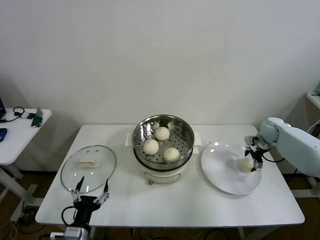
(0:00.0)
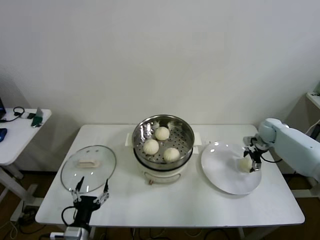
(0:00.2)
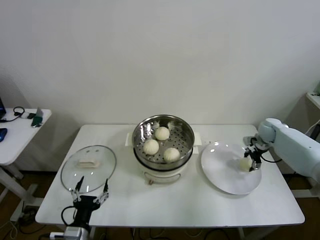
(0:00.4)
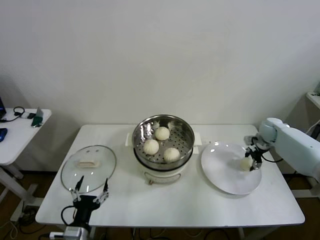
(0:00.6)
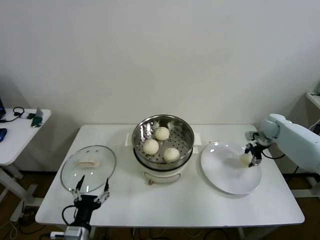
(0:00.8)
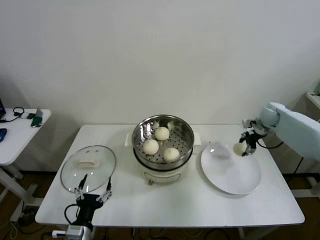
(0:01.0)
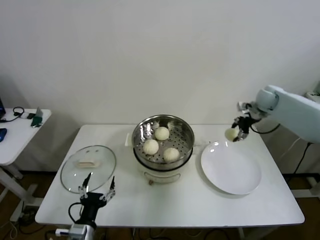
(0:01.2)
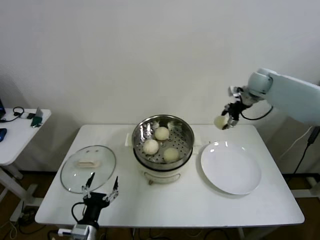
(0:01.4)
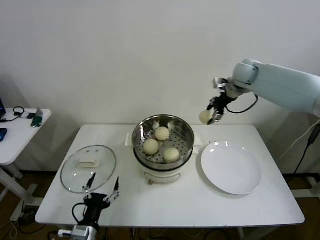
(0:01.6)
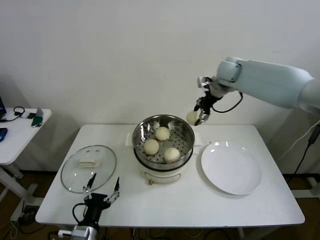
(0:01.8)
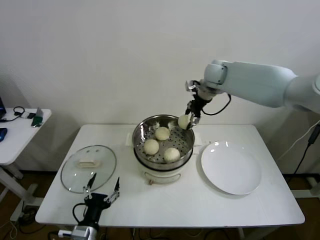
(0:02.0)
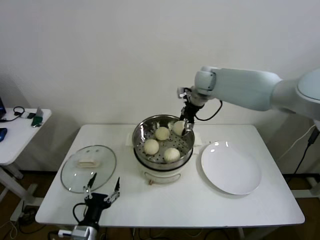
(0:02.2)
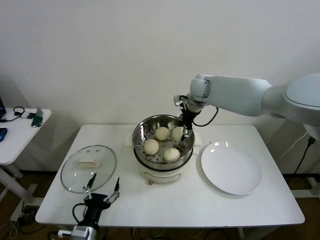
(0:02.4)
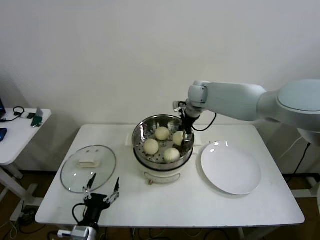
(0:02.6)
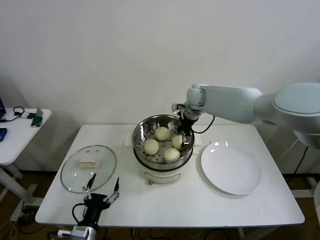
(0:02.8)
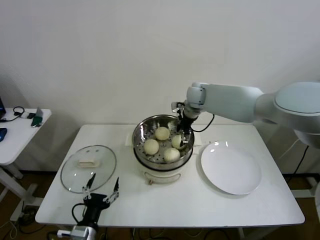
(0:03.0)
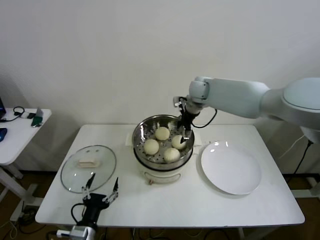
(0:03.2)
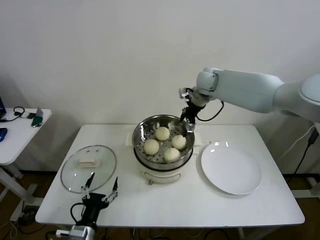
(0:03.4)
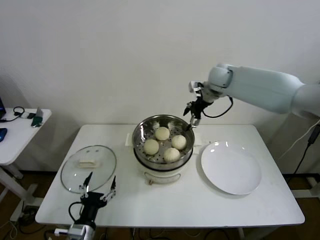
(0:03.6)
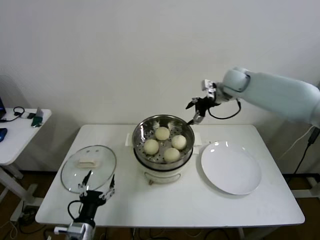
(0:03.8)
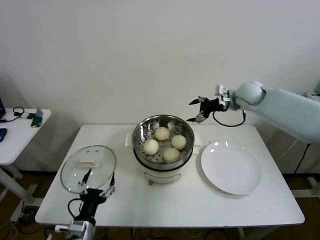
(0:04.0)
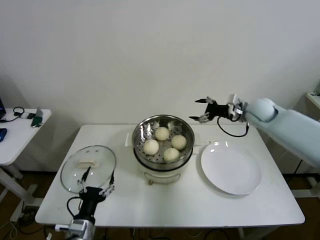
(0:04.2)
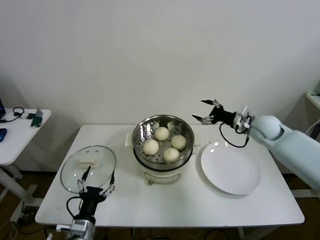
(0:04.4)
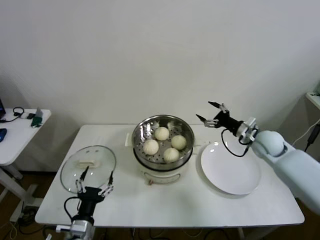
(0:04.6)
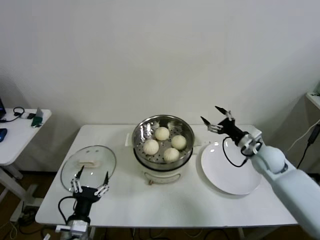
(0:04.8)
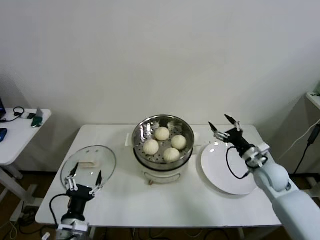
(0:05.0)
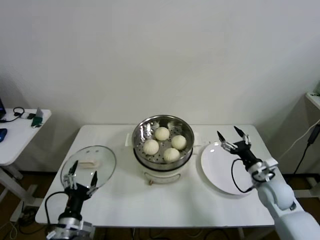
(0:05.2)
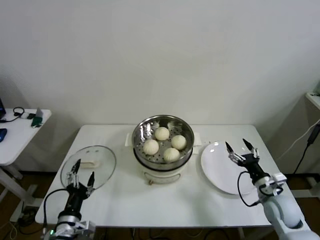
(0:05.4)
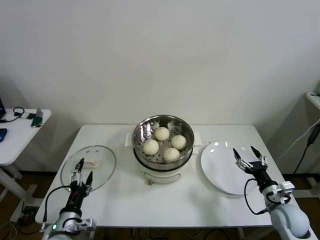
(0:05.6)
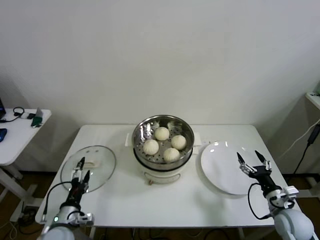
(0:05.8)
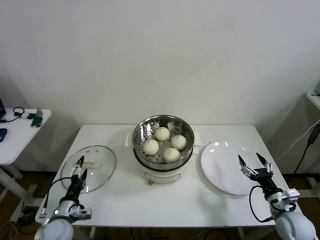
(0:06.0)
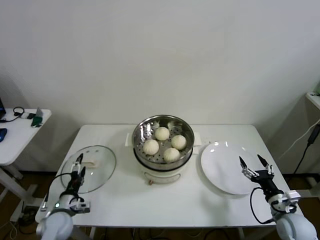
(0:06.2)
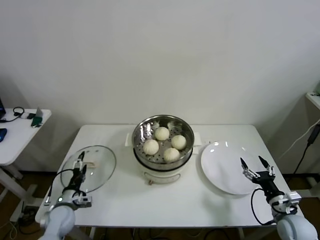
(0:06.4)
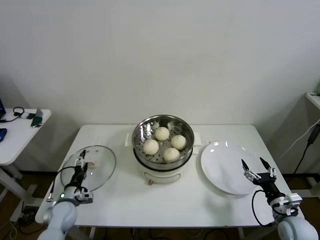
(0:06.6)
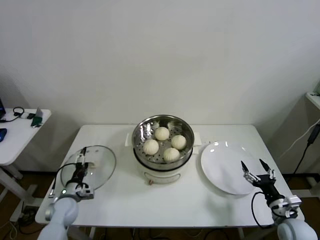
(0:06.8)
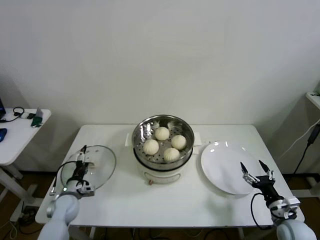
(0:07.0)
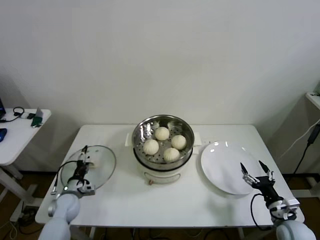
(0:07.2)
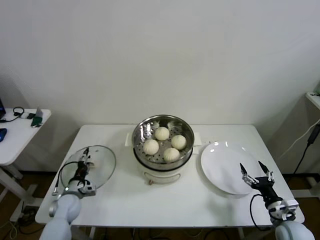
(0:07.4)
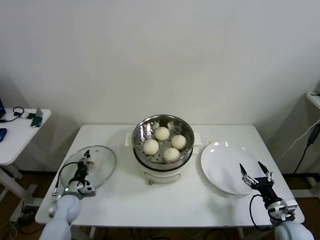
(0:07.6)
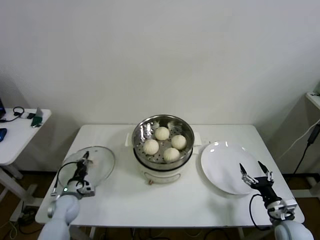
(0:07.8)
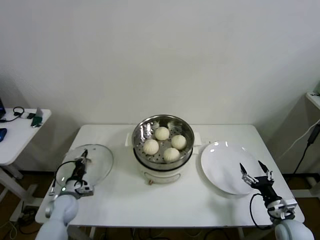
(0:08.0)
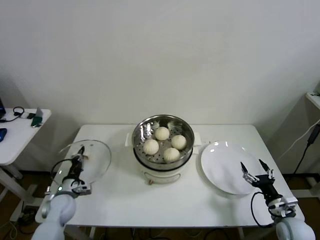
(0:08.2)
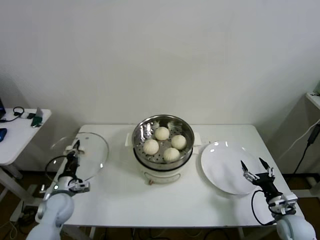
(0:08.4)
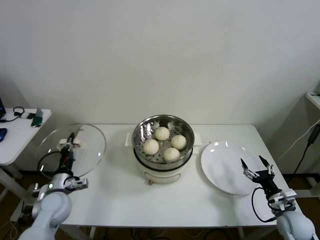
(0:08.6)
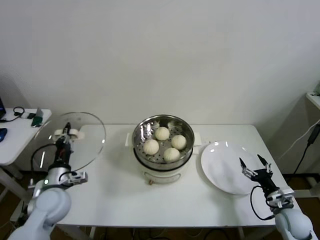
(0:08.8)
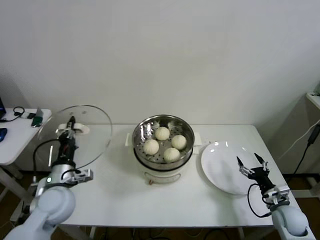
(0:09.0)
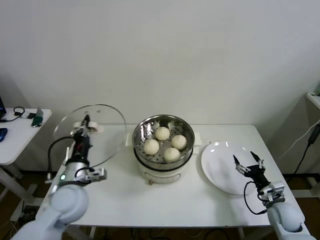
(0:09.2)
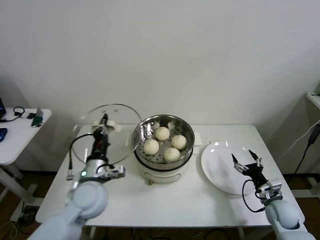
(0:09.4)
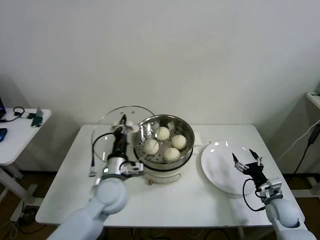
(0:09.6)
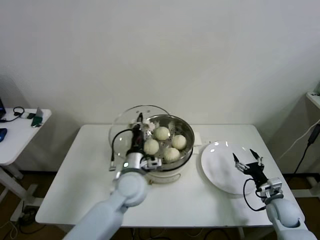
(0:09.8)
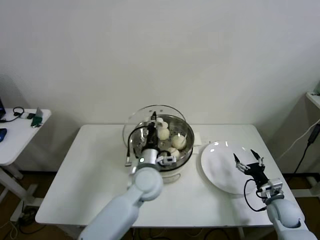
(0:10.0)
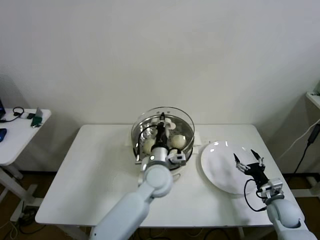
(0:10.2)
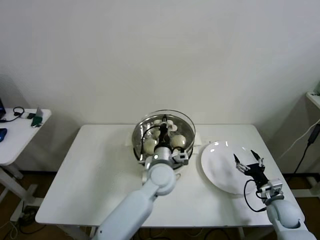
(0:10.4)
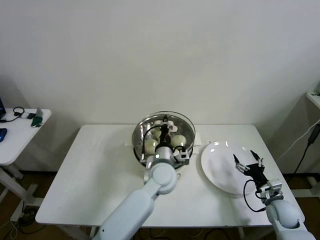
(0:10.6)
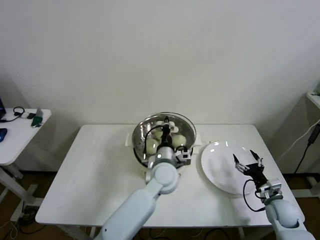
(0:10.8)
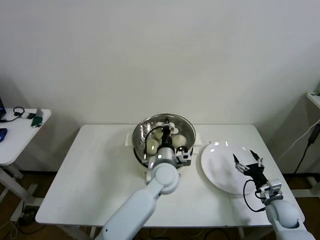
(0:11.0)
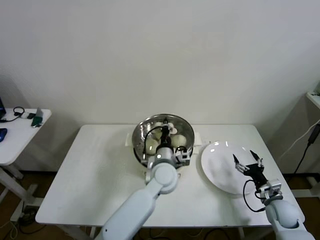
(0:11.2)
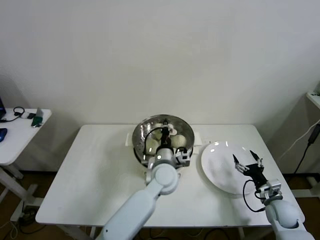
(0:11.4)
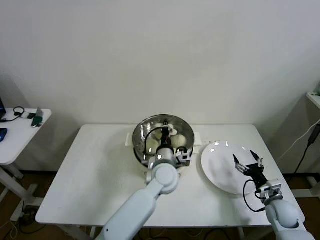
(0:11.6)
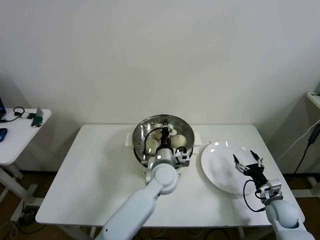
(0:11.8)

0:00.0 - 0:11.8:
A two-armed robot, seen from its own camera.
Step, 0:00.6 - 0:03.0: Place the baozi on the steamer with right gripper.
Step, 0:03.2 - 0:07.8: Grasp the pot lid with left gripper.
0:00.0 - 0:01.4: The right gripper is displaced upward and to the left by about 20 cm, and closes up.
0:01.4 - 0:03.0: The right gripper heads to the left, covering roughly 20 cm, and opens its fingers.
0:03.0 - 0:04.4: The right gripper heads to the right and backward, covering roughly 25 cm.
0:04.4 - 0:06.0: The left gripper travels to the left and forward by about 10 cm; the right gripper goes about 30 cm backward and downward.
0:06.0 - 0:07.4: The left gripper shifts roughly 10 cm forward and downward.
0:07.4 - 0:08.8: The left gripper travels upward by about 15 cm, and closes its fingers.
0:08.8 - 0:10.4: The left gripper is displaced to the right by about 35 cm.
0:10.4 - 0:11.8: The grippers move only a little.

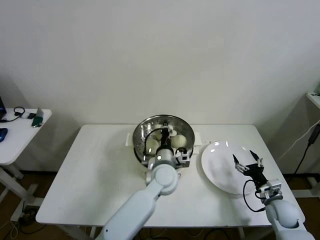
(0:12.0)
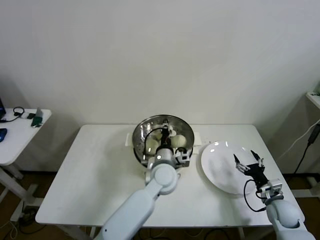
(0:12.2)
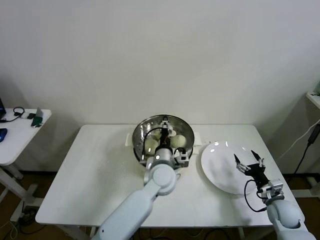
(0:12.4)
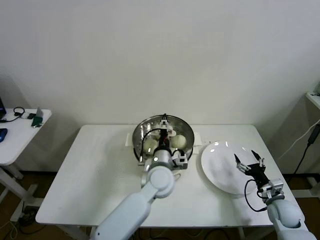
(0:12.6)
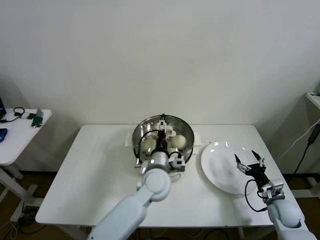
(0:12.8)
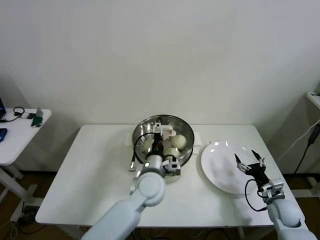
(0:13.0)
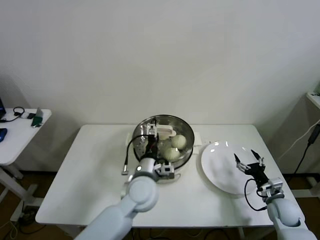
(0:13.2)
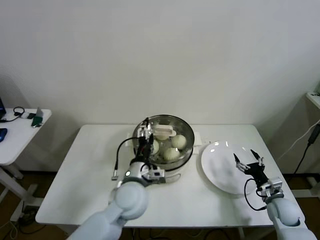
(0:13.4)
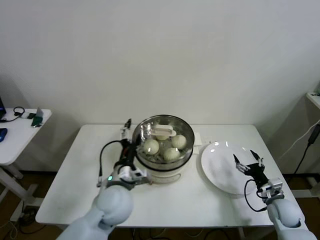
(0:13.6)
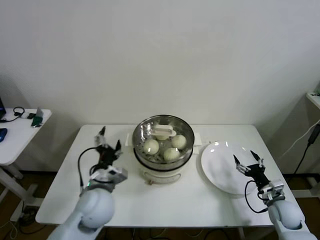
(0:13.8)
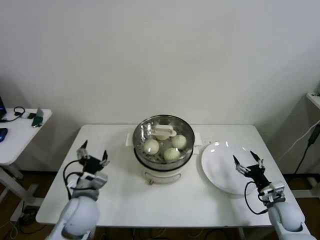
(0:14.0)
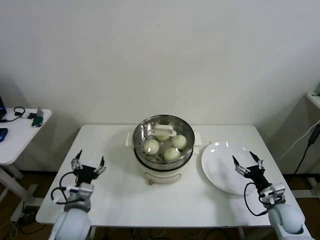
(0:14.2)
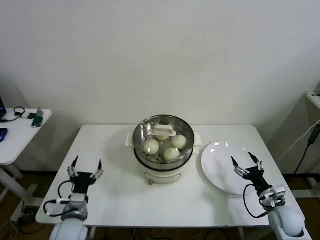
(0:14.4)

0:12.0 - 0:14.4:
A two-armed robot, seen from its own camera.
0:12.0 - 0:13.2: The left gripper heads to the left, covering approximately 5 cm, and opens its fingers.
0:13.2 - 0:14.4: The left gripper goes roughly 25 cm to the left and backward.

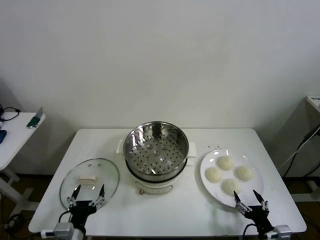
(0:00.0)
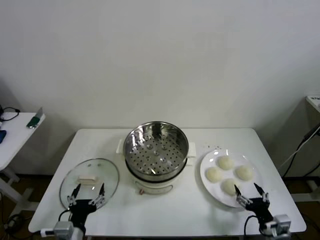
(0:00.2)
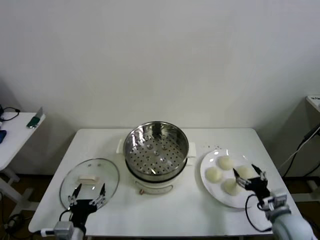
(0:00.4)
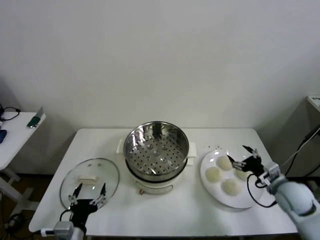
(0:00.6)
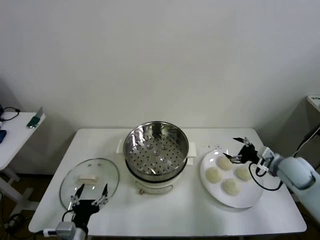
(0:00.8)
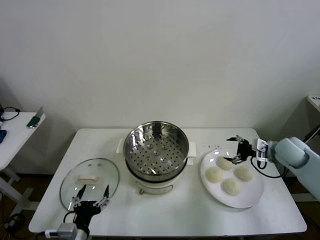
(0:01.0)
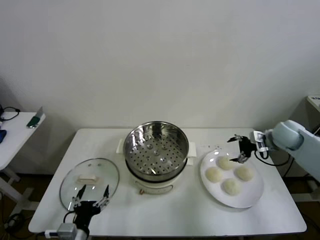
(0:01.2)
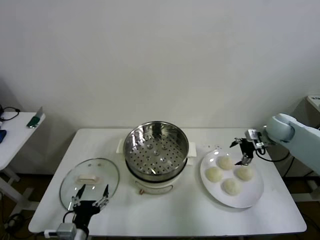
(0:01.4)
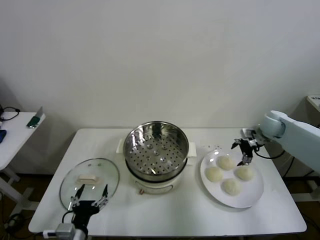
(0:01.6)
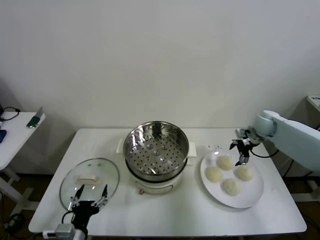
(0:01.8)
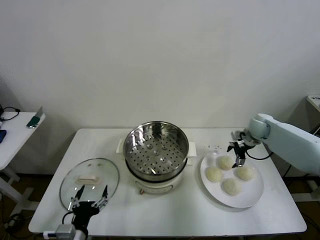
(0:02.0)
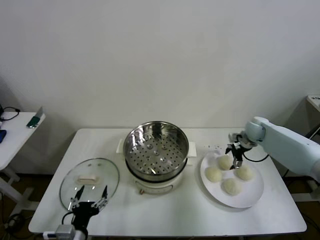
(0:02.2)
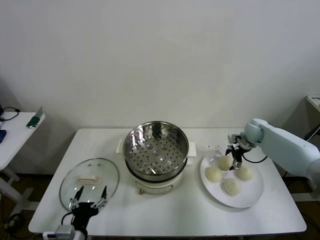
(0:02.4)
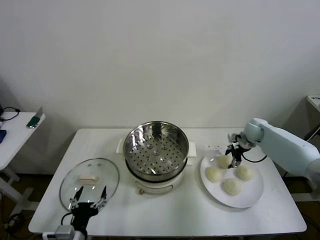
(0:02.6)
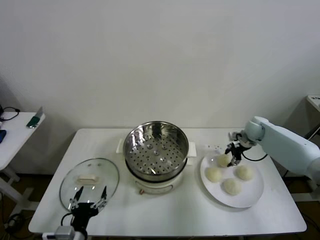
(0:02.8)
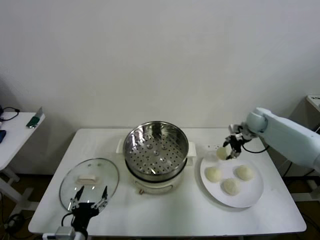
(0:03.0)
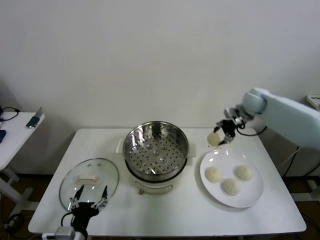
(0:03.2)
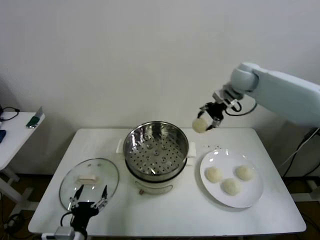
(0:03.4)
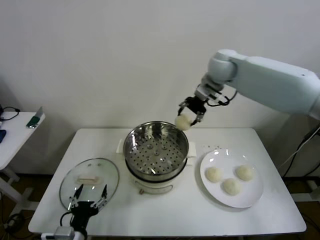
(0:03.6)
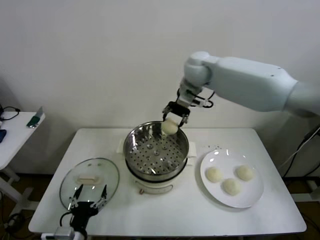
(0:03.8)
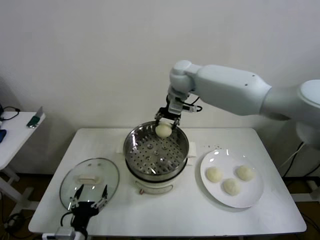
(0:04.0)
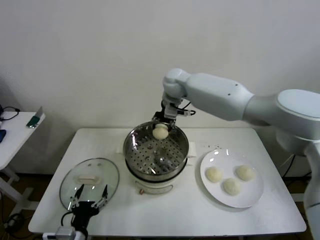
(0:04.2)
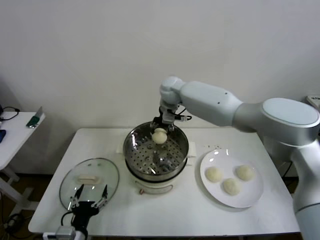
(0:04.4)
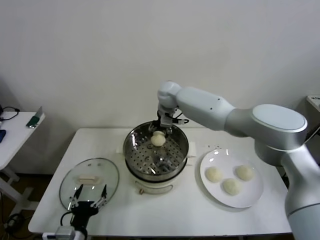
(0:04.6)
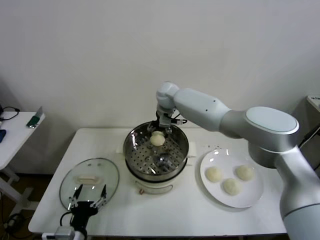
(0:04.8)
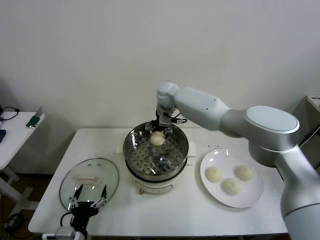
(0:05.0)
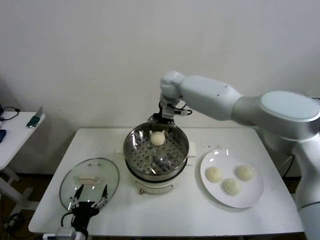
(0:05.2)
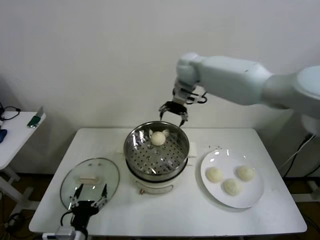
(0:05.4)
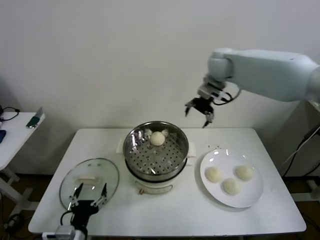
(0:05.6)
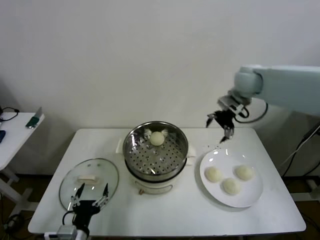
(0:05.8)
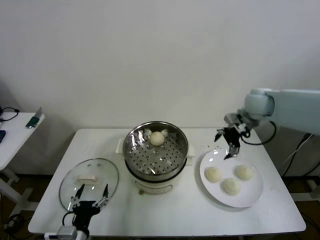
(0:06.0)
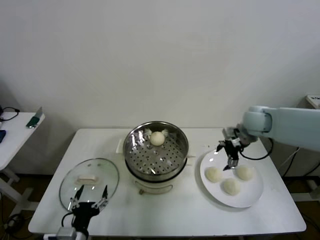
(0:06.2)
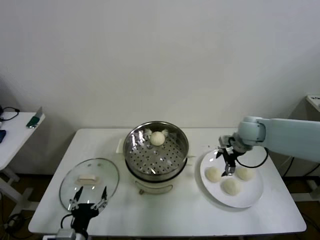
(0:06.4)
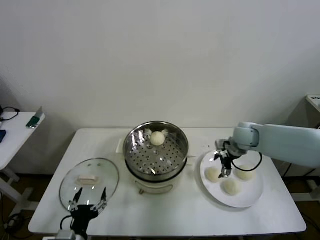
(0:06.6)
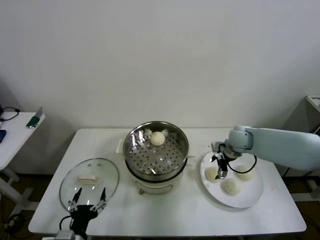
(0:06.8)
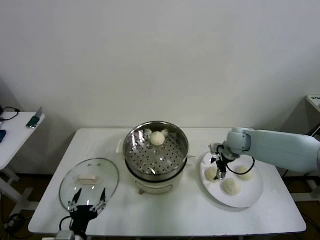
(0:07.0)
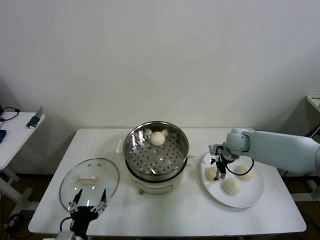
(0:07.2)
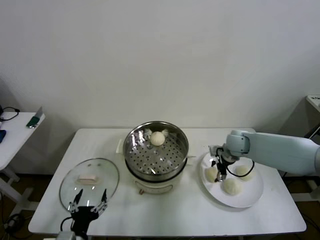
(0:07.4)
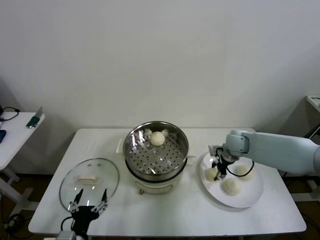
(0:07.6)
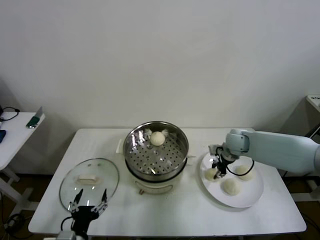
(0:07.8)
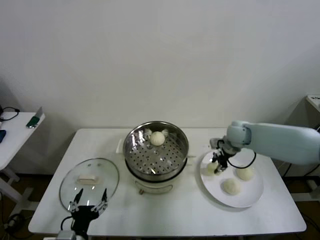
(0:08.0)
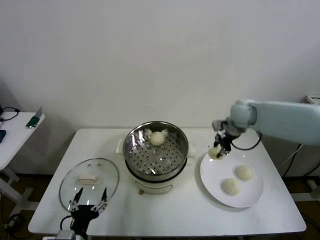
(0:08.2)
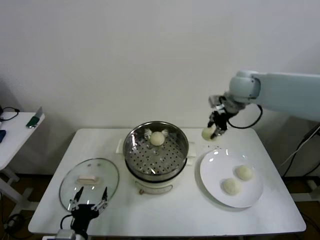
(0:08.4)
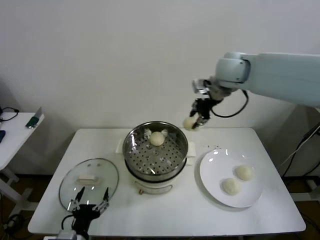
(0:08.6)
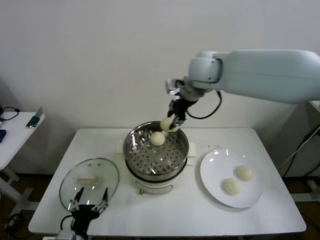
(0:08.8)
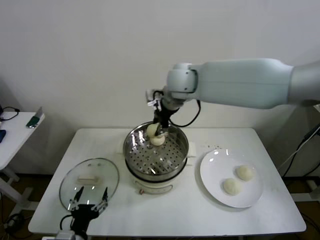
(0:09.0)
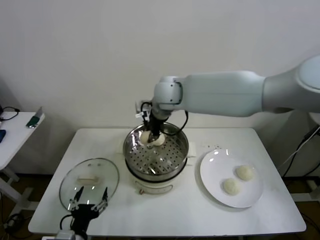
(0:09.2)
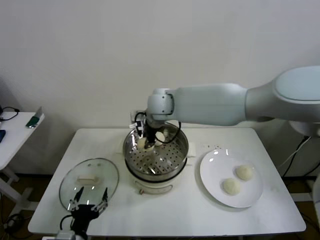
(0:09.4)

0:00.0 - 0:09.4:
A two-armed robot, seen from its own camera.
Step, 0:00.0 - 0:02.6: Grasp the baozi in the plate with right gripper.
Step, 0:02.8 - 0:04.8: Place the baozi on the steamer with right gripper.
Step, 0:05.0 - 0:07.6: Grasp the baozi in the plate with right gripper.
0:01.6 - 0:03.2: The right gripper heads upward and to the left, covering about 15 cm, and closes up.
0:03.2 - 0:04.8: The right gripper heads to the left, covering approximately 30 cm, and opens its fingers.
0:04.8 - 0:06.2: The right gripper shifts roughly 30 cm to the right and backward.
0:06.2 - 0:07.8: The right gripper travels downward by approximately 10 cm, and closes its fingers.
0:07.8 - 0:09.4: The right gripper moves to the left and upward, about 35 cm.
